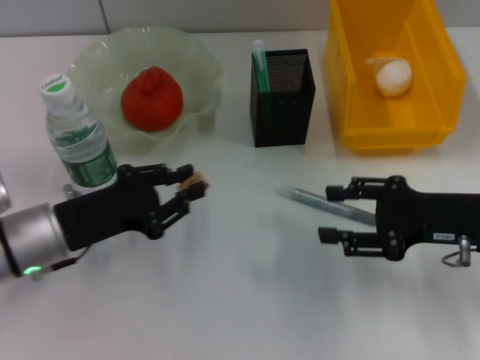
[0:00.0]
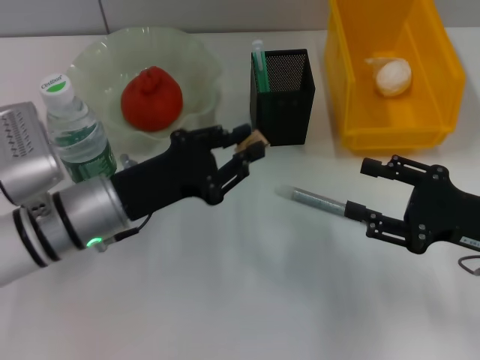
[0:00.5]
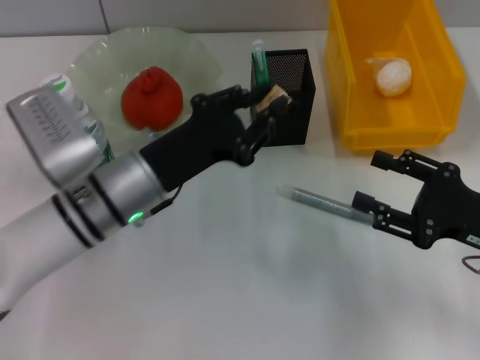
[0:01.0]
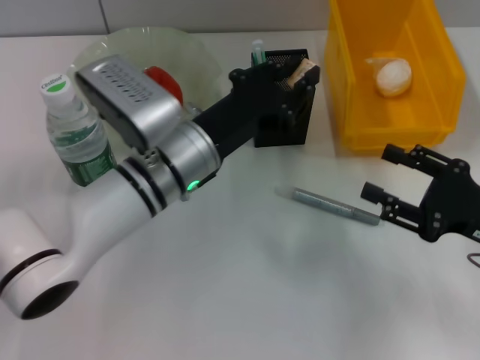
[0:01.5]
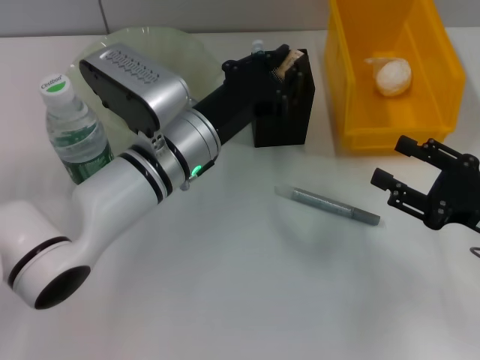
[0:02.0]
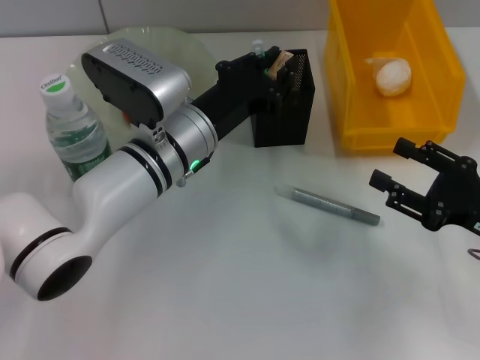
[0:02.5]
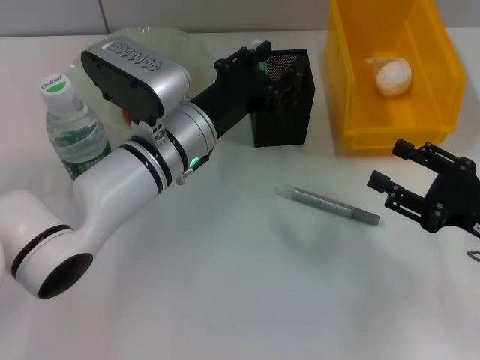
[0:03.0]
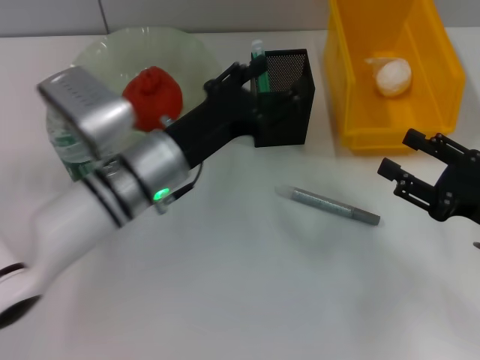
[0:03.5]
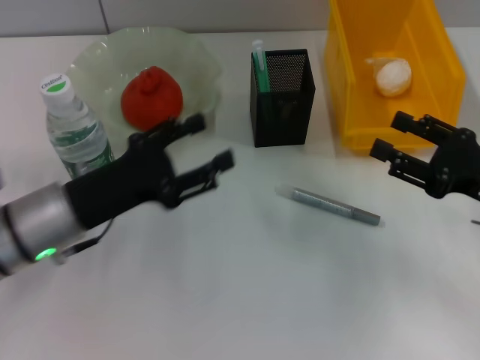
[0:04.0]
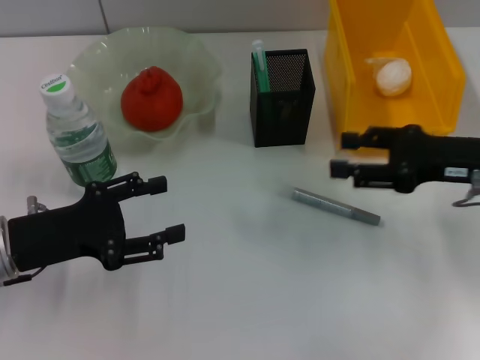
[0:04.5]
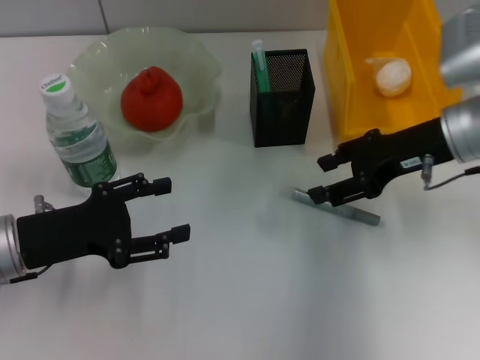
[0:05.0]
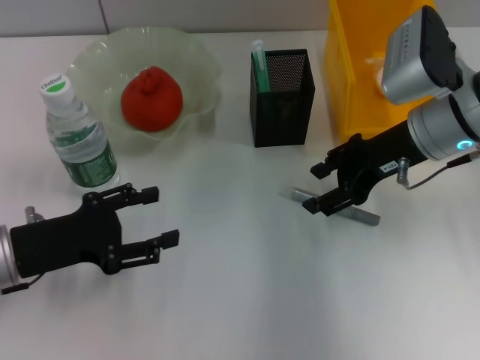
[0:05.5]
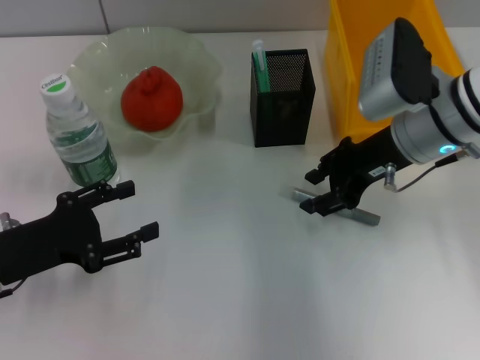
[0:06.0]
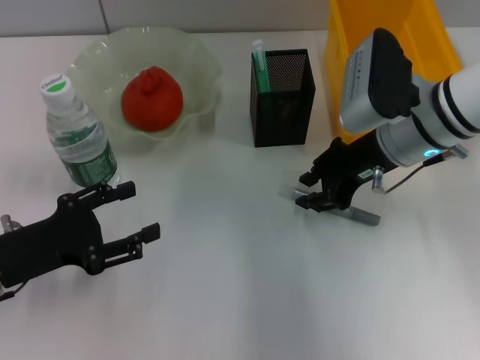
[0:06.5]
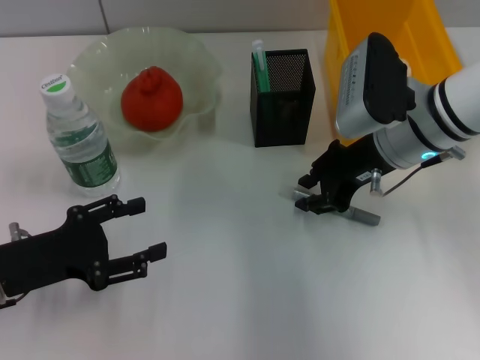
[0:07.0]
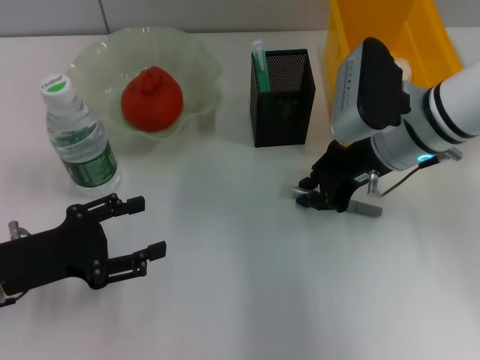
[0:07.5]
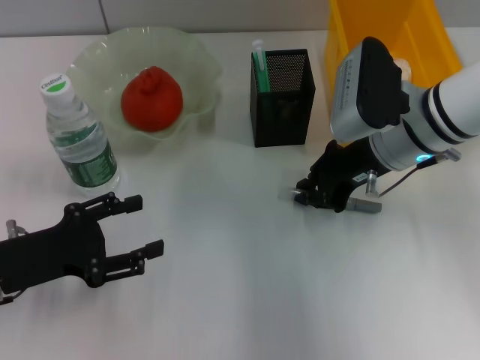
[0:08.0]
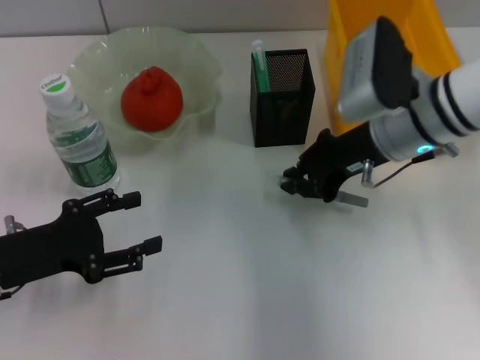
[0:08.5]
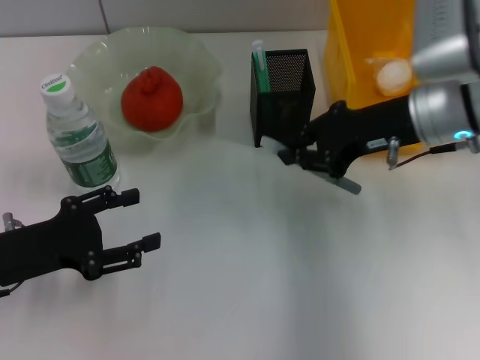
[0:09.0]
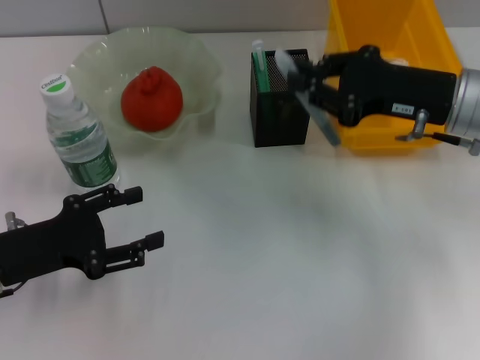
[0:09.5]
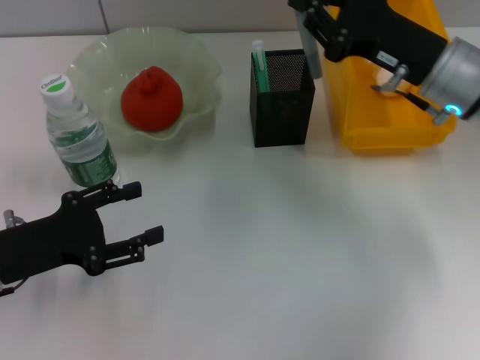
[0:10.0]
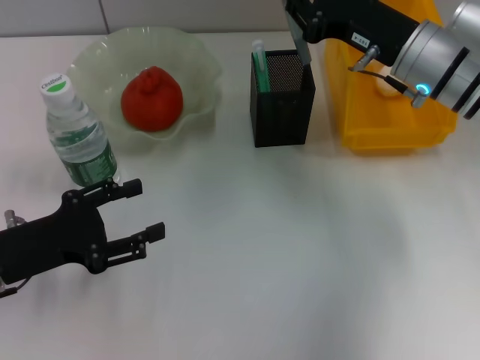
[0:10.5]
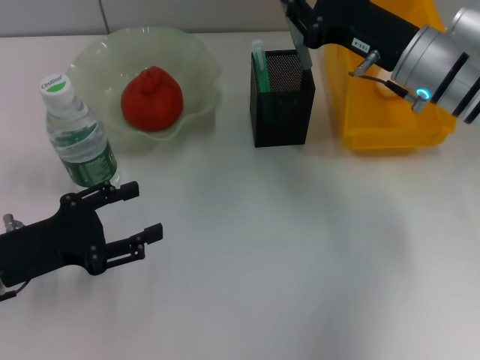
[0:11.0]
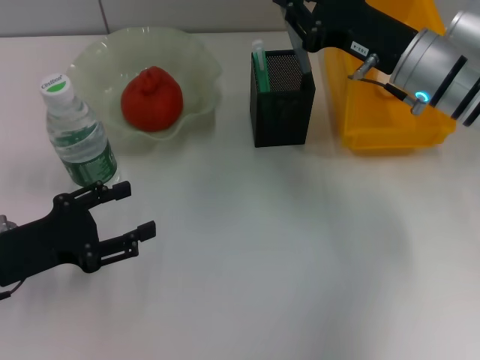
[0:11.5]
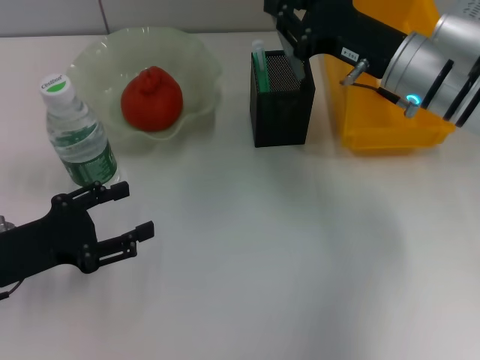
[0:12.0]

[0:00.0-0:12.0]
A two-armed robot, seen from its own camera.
Step, 0:00.0 to 0:02.5: Put the eraser into the pen holder with the right hand.
Step, 0:03.0 to 0:07.5: Grab the gray glue with the right hand.
0:00.0 to 0:02.0: The right gripper shifts by about 5 cm. The left gripper is displaced to the right and forward by some 15 cm.
0:02.0 to 0:04.0: The left gripper travels to the left and backward by approximately 15 cm, and opens up.
0:04.0 to 0:06.0: The right gripper travels to the left, forward and upward by about 15 cm. The left gripper goes some 5 cm to the left.
0:06.0 to 0:08.0: The right gripper closes up.
0:10.0 to 0:12.0: The grippers stay close to where they were, moving slightly.

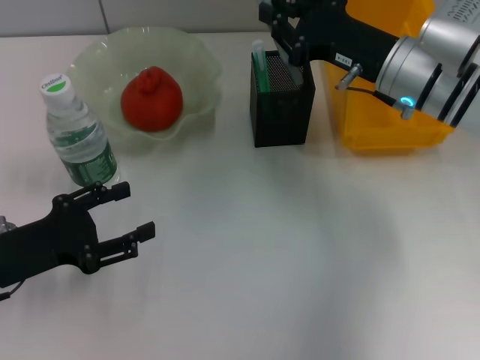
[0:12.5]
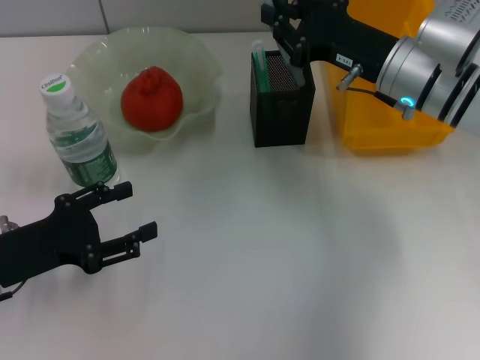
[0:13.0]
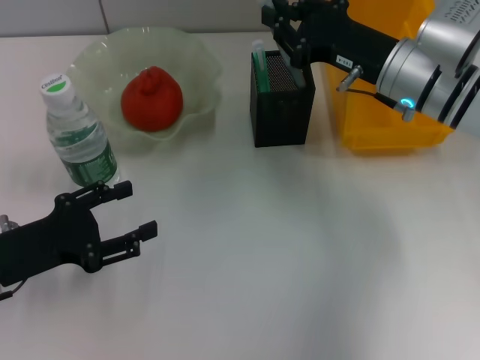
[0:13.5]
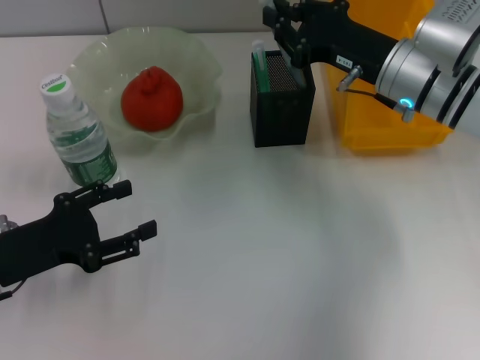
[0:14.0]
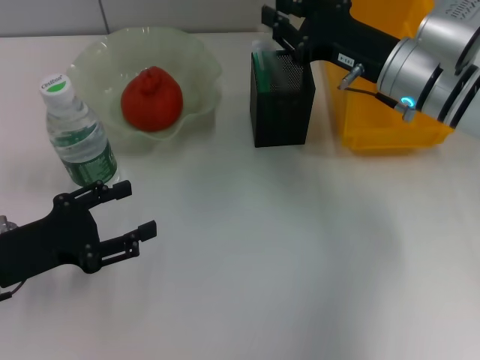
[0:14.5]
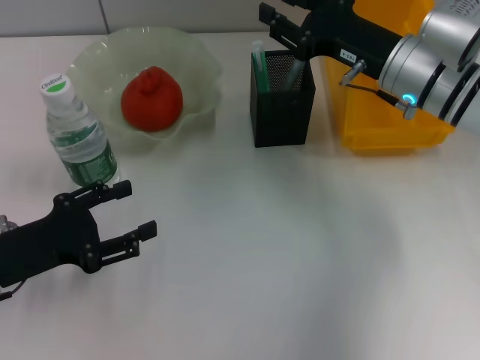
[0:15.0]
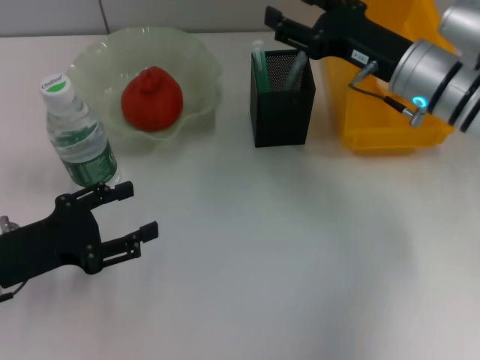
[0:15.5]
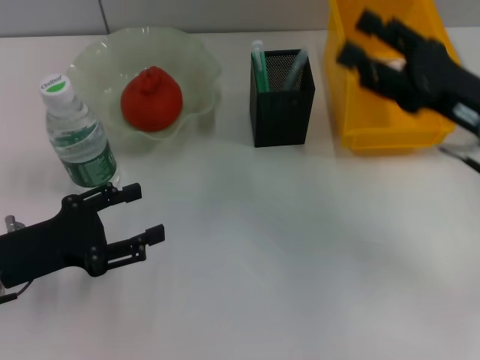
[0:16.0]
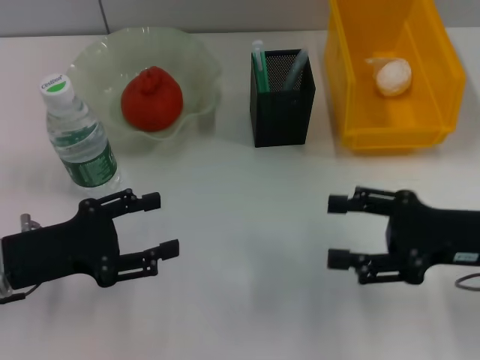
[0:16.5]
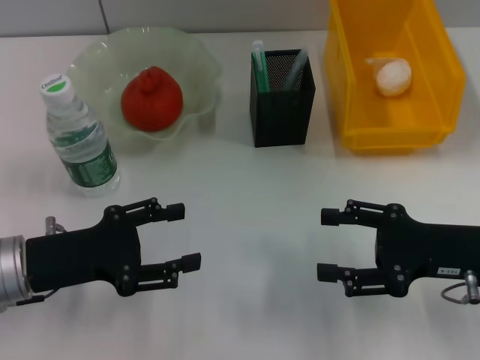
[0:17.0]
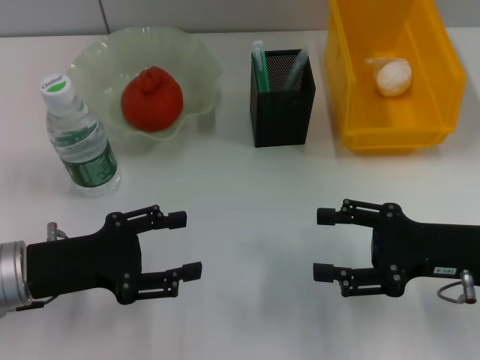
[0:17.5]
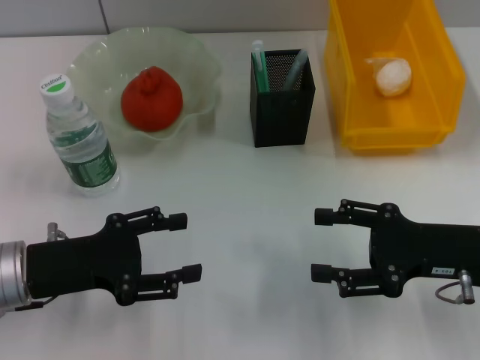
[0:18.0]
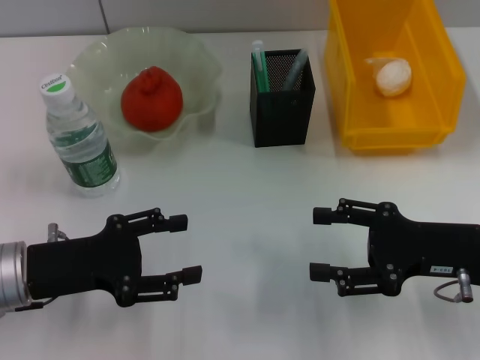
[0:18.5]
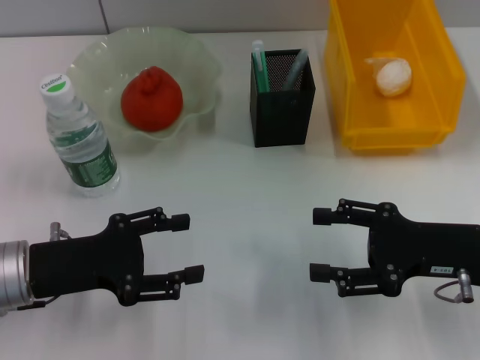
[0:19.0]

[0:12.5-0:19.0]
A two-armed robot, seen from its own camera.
Step, 0:12.5 to 0:14.5: Place the gray glue into the pen holder with the right hand.
0:12.5 to 0:14.5: The two grippers keep their place.
0:14.5 to 0:17.0: The right gripper moves backward and to the right, approximately 15 cm, and opens its fingers.
0:17.0 to 0:19.0: Both grippers stay about where they are.

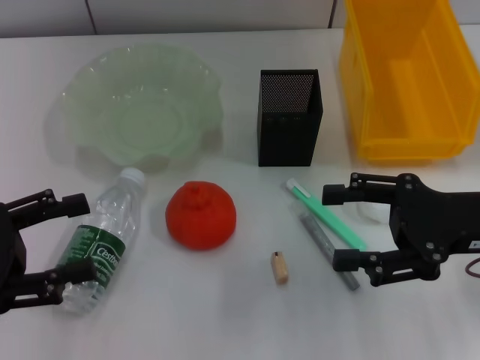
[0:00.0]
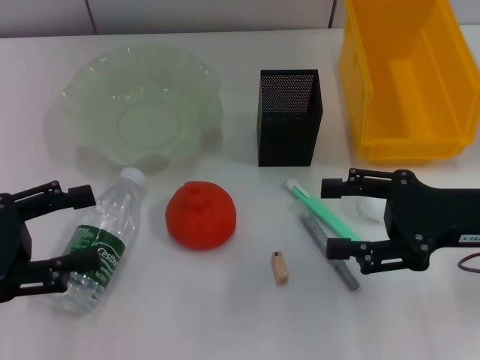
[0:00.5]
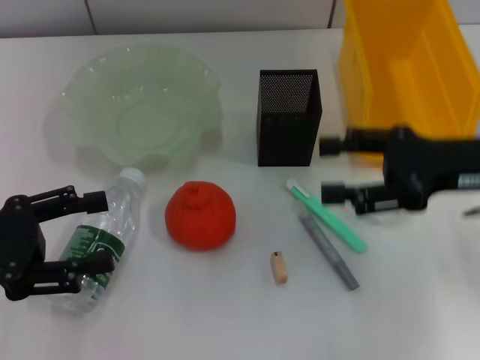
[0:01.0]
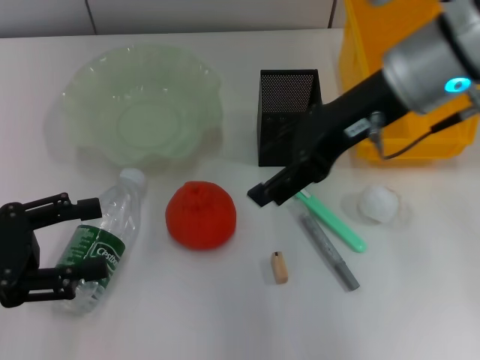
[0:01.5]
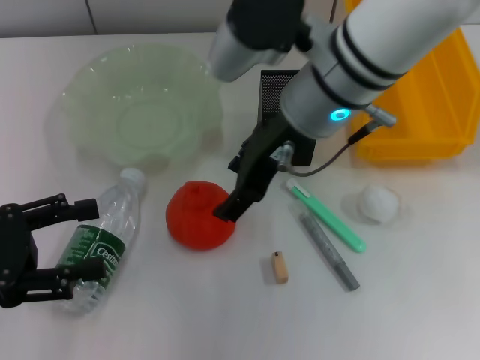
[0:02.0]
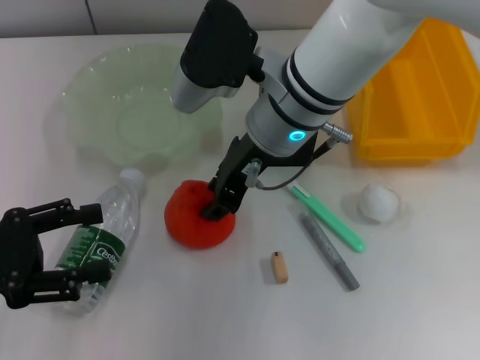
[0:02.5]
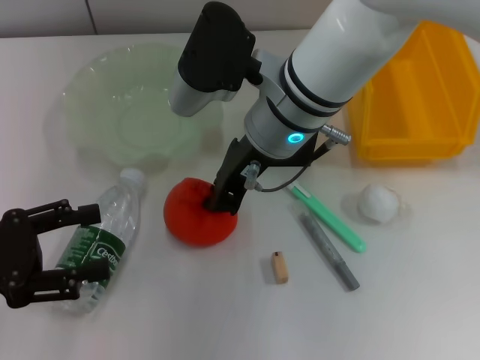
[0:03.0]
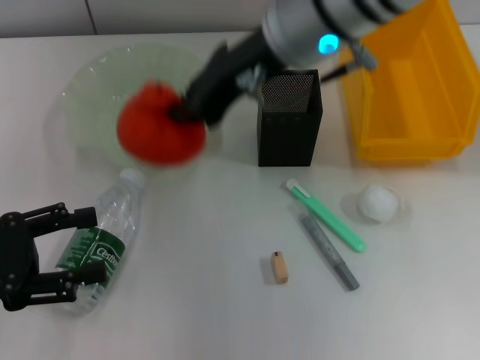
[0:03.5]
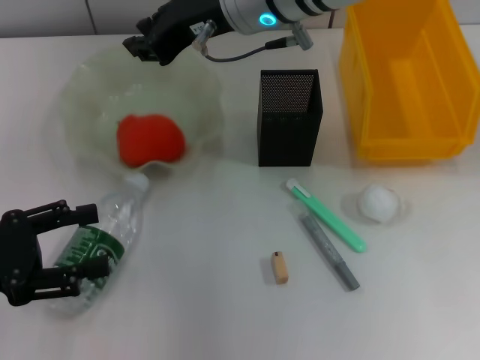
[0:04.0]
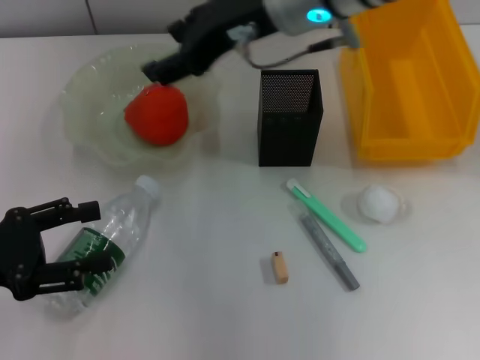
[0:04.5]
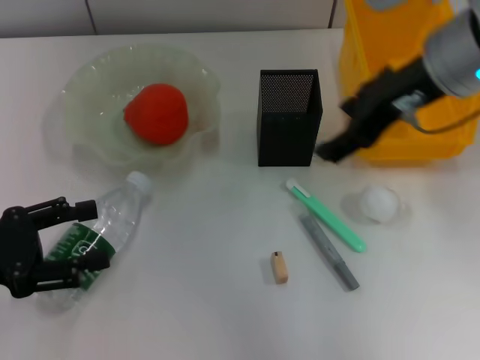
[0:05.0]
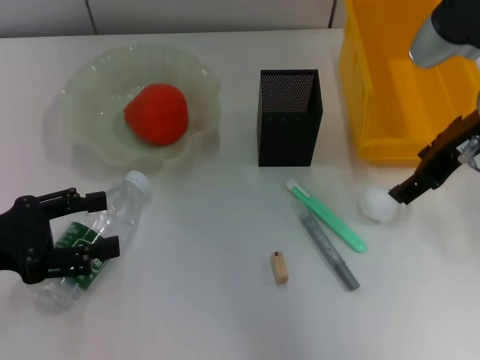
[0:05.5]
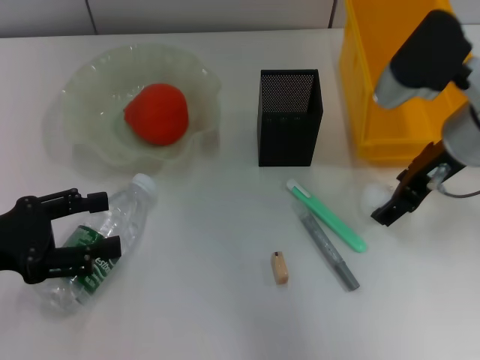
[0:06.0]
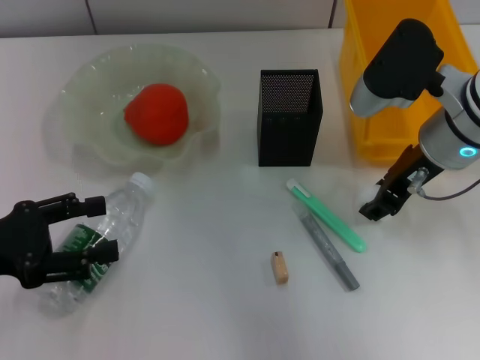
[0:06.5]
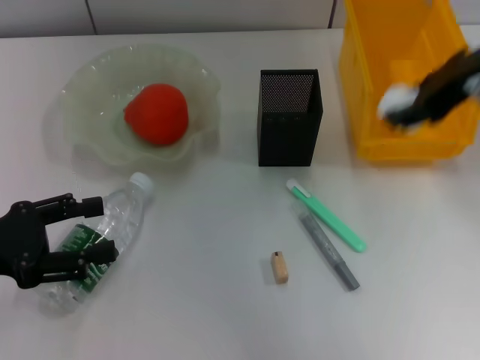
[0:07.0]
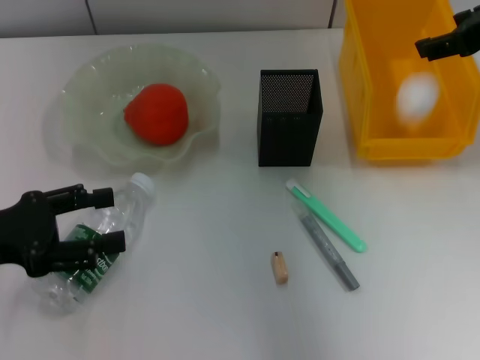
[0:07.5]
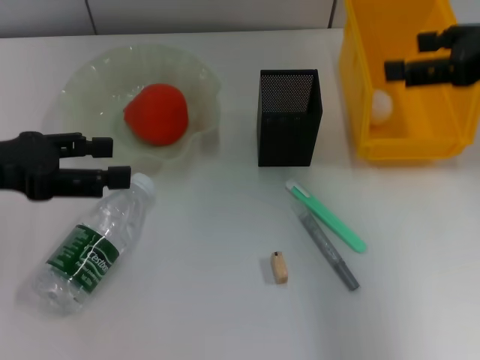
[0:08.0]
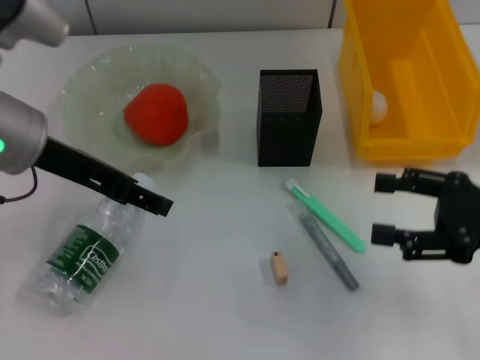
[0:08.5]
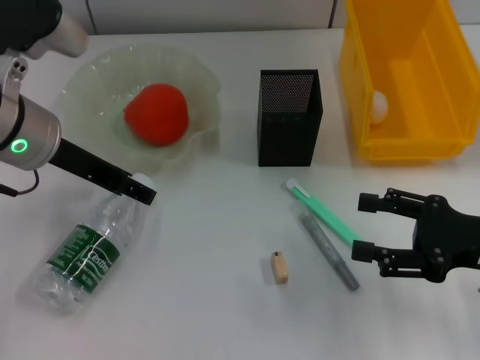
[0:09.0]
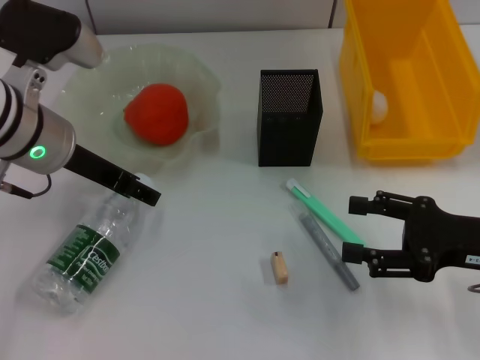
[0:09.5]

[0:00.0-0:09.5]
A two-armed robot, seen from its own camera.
Step, 0:00.0 to 0:02.5: Grab the orange with the right hand.
Step, 0:03.5 to 0:04.0: Place the orange into the fruit bowl with the right hand.
Step, 0:04.5 to 0:06.5: Grab the paper ball with the right hand.
Step, 0:07.0 to 0:07.5: Place the paper ball into the trash can with the right hand.
0:00.0 to 0:02.0: The right gripper travels to the left, forward and upward by roughly 25 cm.
0:02.0 to 0:04.0: The right gripper goes about 5 cm forward, and closes.
0:04.0 to 0:05.5: The right gripper moves to the right, approximately 20 cm, and opens its fingers.
0:05.5 to 0:07.5: The right gripper is displaced upward by roughly 5 cm.
0:07.5 to 0:09.5: The left gripper is displaced to the right and forward by approximately 15 cm. Meanwhile the right gripper moves downward and backward, roughly 20 cm, and opens.
